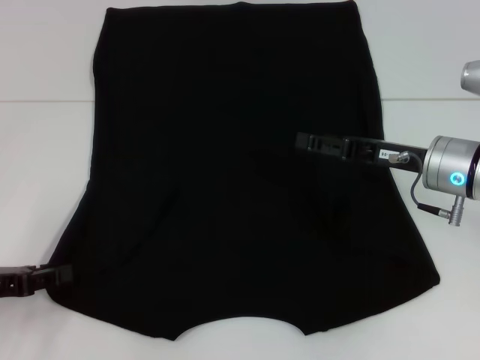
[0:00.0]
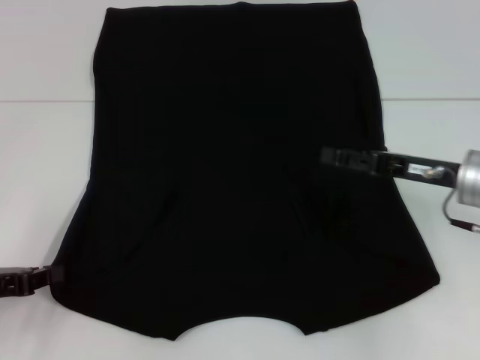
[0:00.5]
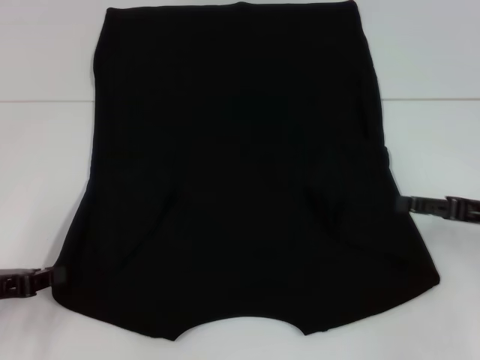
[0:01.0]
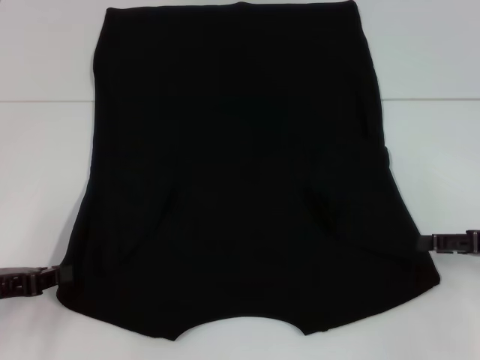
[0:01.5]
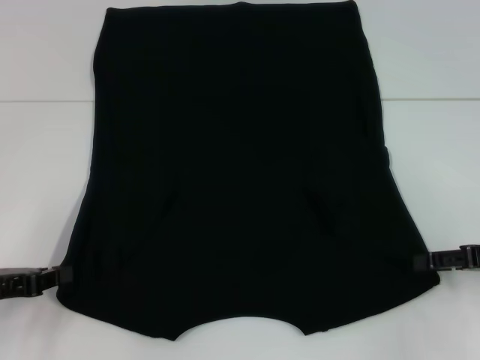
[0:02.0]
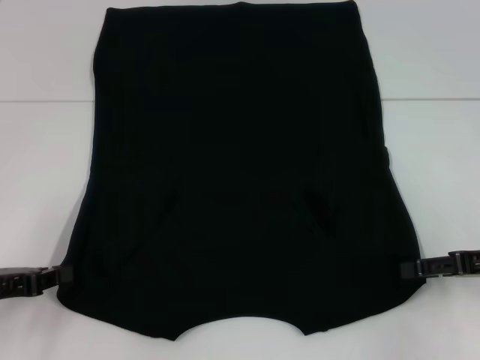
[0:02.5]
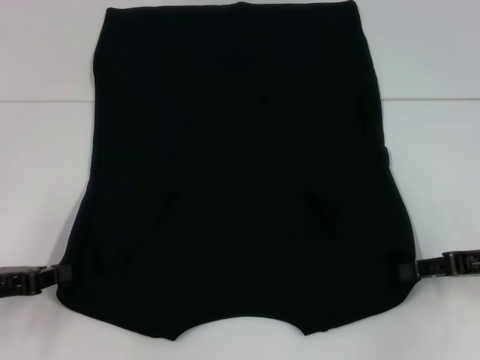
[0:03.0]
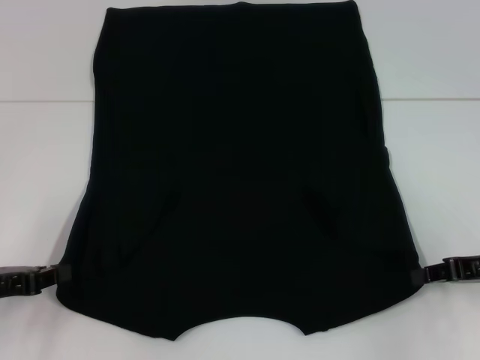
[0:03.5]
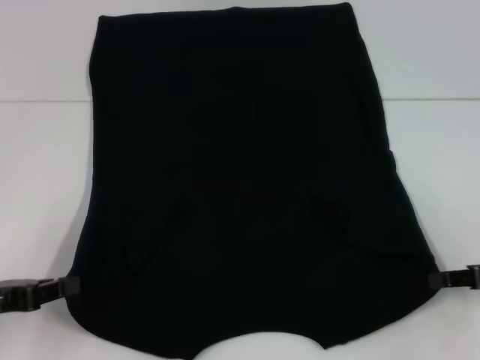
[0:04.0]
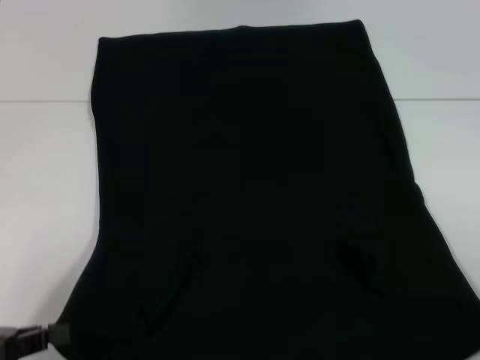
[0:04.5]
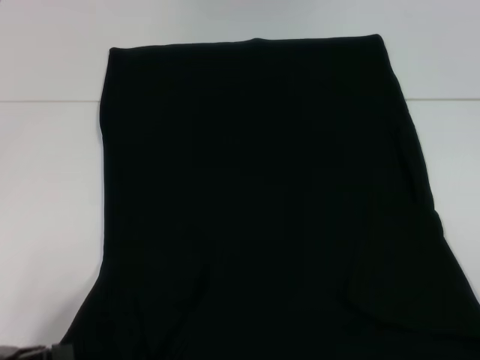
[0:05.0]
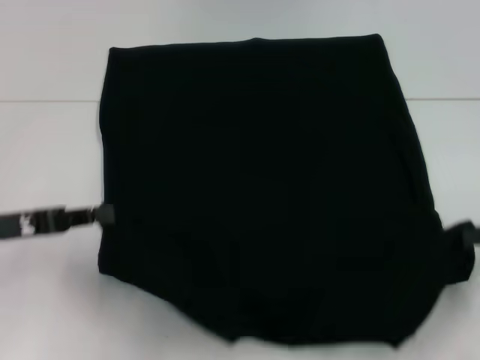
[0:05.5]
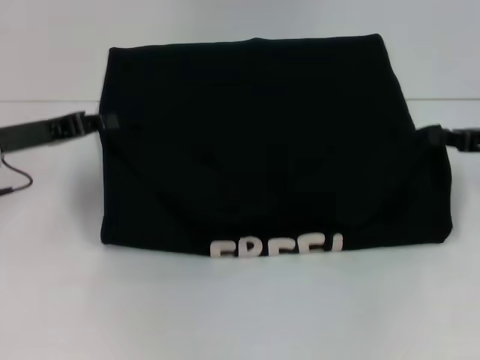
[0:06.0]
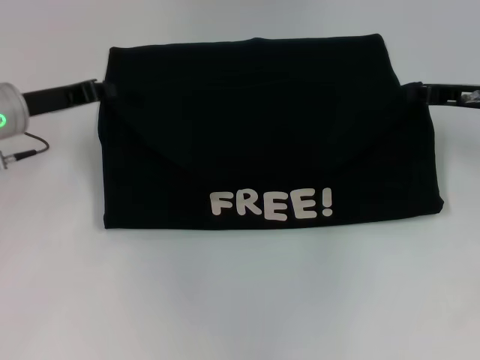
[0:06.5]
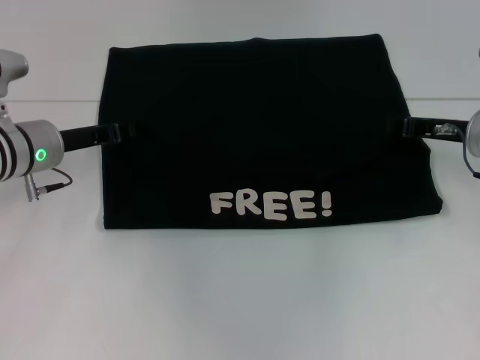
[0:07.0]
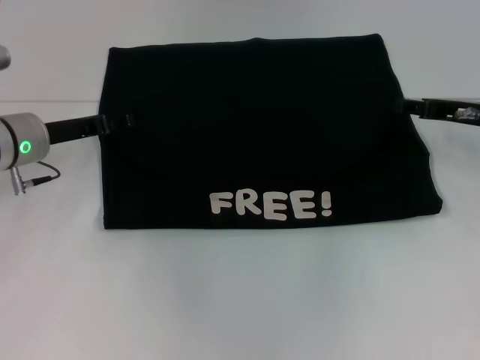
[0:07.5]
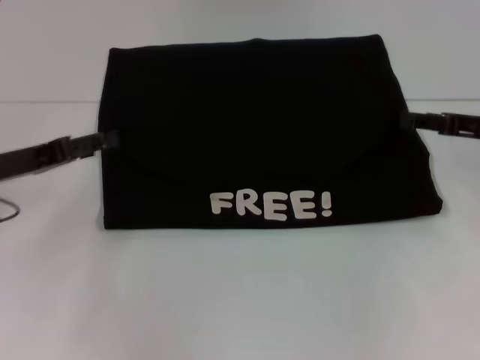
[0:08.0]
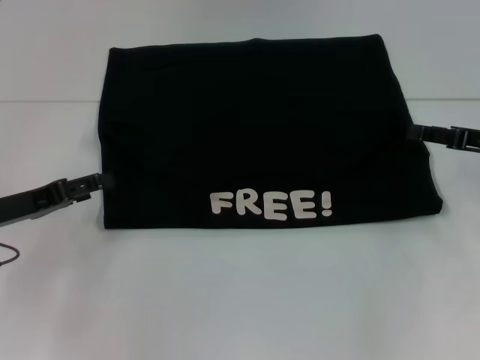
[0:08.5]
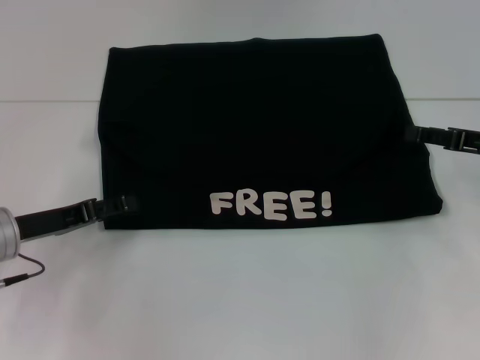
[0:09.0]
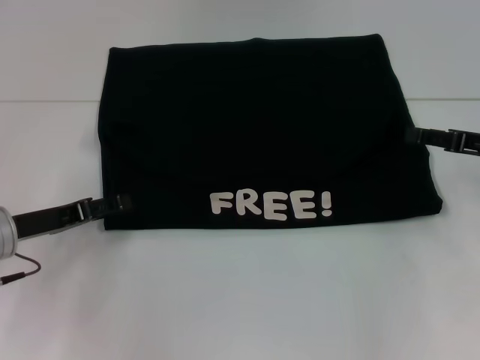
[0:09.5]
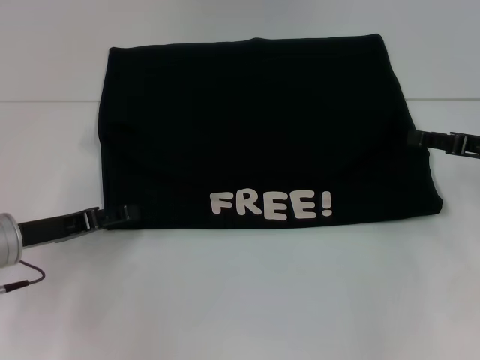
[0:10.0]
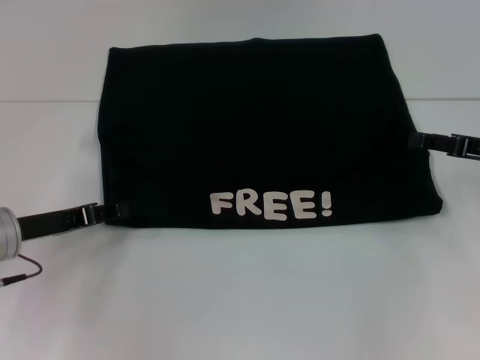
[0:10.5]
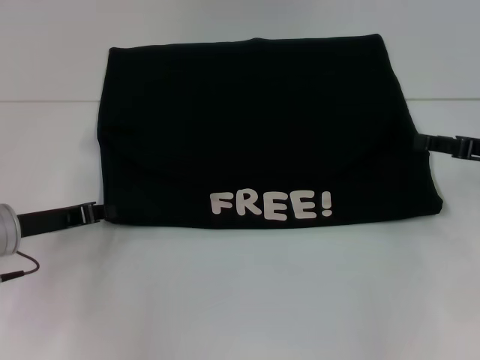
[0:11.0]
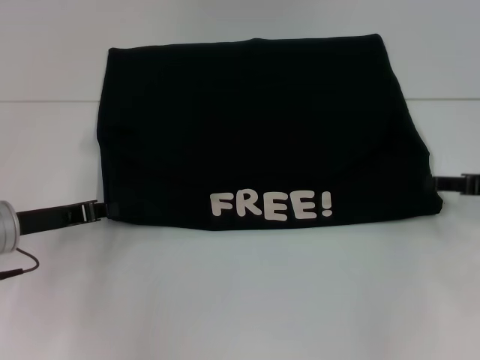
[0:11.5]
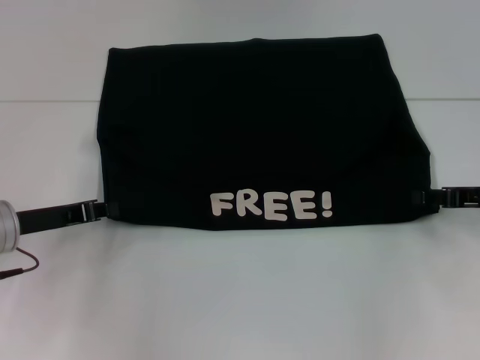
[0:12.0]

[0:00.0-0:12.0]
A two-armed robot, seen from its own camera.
Step, 0:01.0 to 0:04.0: Grab the bottom right corner with your right hand.
Step, 0:04.5 to 0:07.0: Fold the clothes with your left hand.
Step, 0:04.5 to 0:07.0: Fold the clothes with your right hand.
0:00.0 to 0:02.0: The right gripper travels to the right and backward by some 15 cm. The left gripper closes its fingers.
0:02.0 to 0:04.0: The right gripper closes.
0:04.0 to 0:06.0: Both grippers travel together forward and upward, about 10 cm.
0:06.0 to 0:08.0: The right gripper opens. Meanwhile the left gripper opens.
0:08.0 to 0:10.0: The left gripper shifts roughly 5 cm downward.
0:10.0 to 0:12.0: The left gripper closes its fingers.

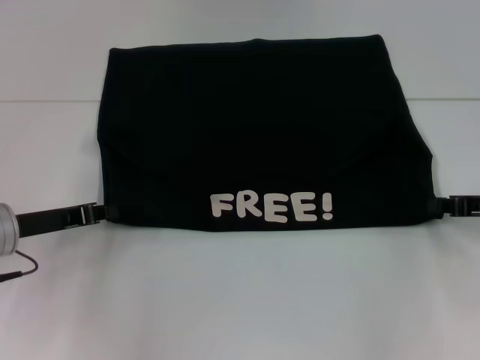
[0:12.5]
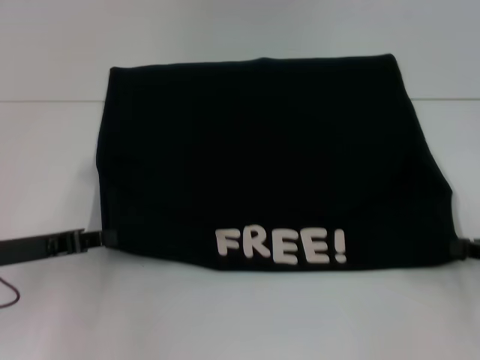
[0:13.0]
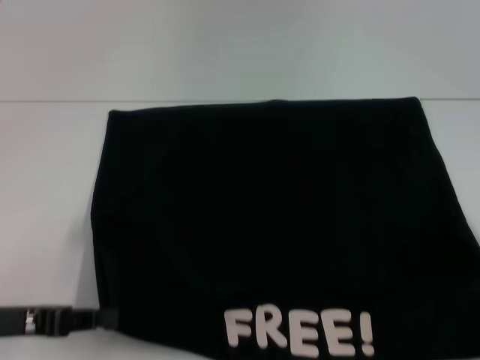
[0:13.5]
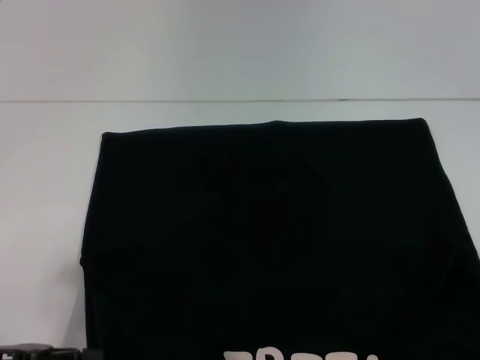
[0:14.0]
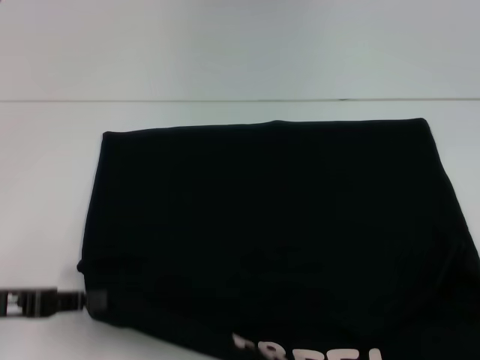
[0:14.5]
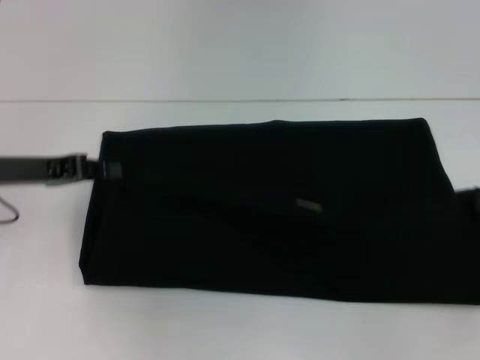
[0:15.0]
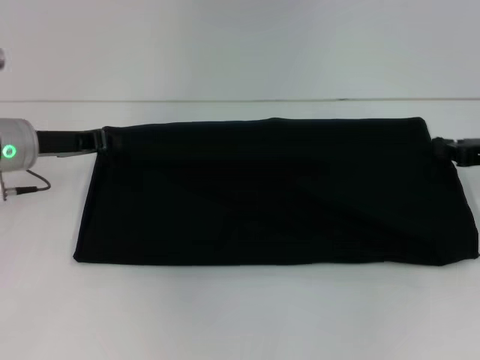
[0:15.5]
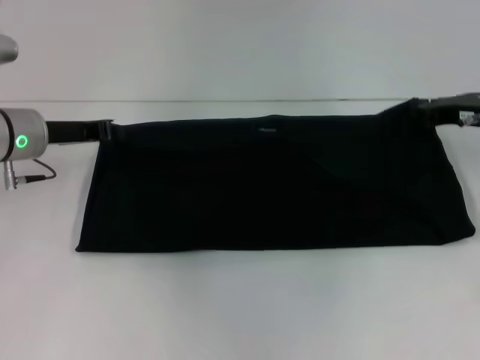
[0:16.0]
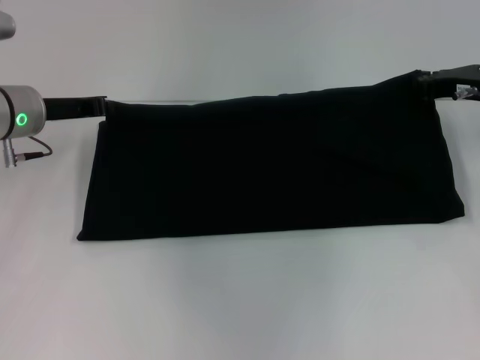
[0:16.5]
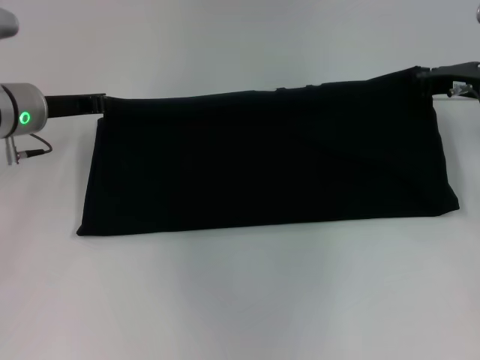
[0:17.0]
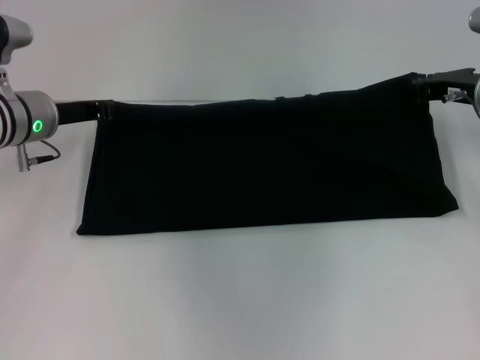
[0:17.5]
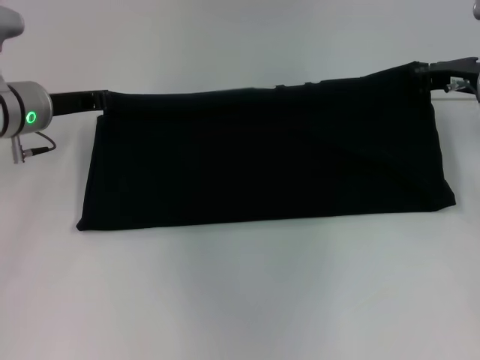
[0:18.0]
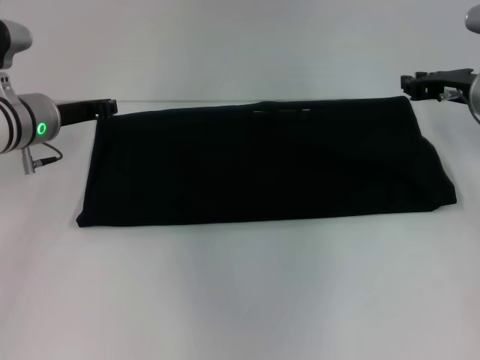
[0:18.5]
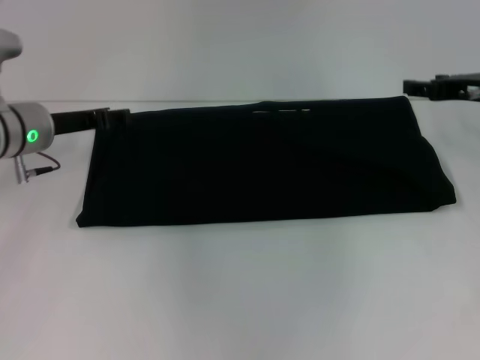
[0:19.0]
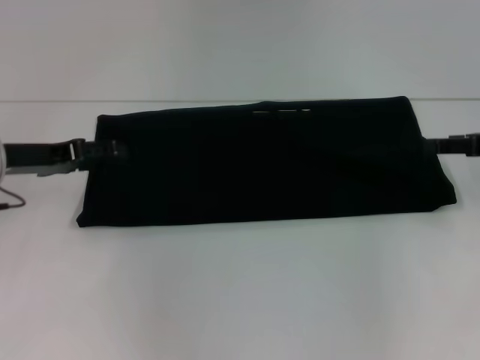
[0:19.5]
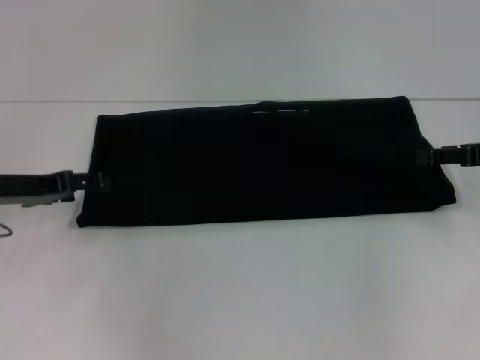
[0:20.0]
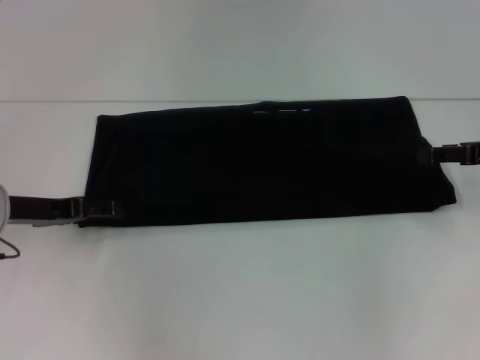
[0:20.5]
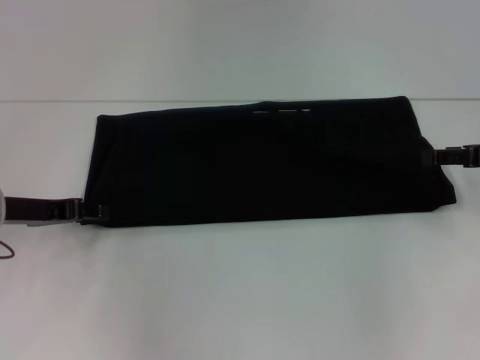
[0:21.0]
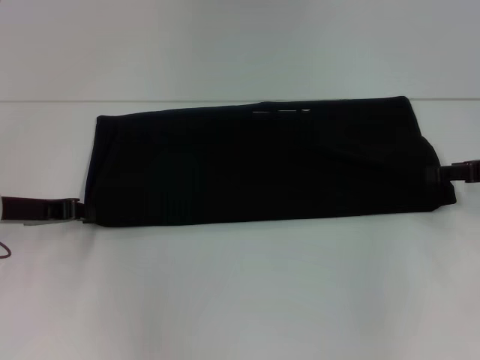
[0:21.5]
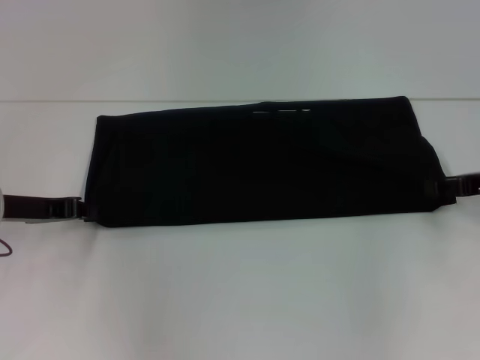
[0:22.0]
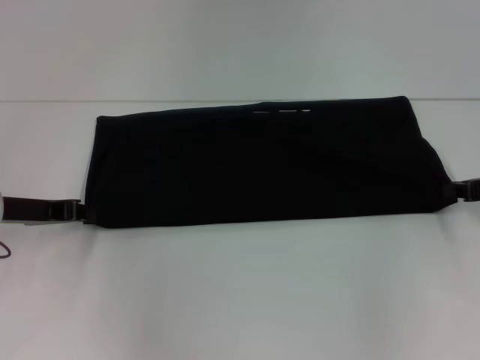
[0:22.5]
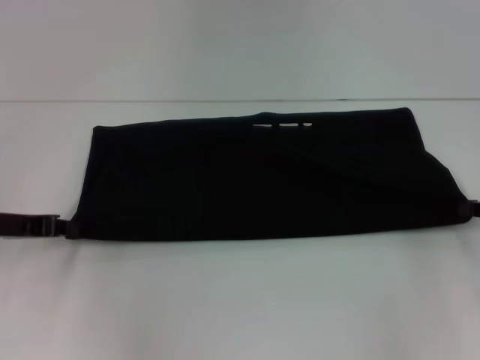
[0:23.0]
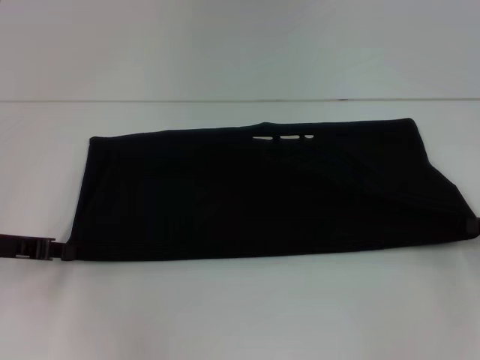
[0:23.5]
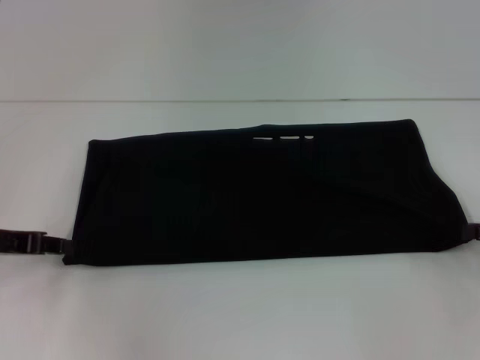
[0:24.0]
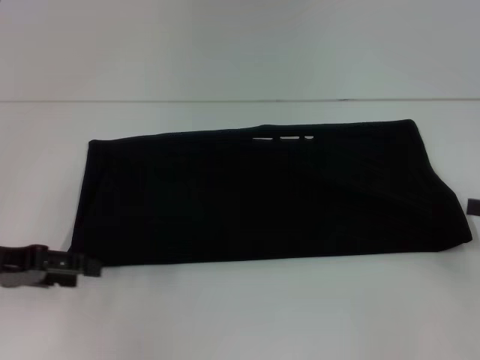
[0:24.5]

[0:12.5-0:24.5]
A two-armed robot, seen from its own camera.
Step, 0:14.0 to 0:19.0: Fold the clothes with your right hand.
0:12.5 to 0:14.5: The left gripper is displaced backward by about 10 cm; the right gripper is displaced backward and to the right by roughly 20 cm.
0:14.5 to 0:16.5: The right gripper heads forward and to the left, covering some 30 cm. Meanwhile the left gripper shifts about 20 cm forward.
0:16.5 to 0:18.5: There are only small adjustments of the grippers.
0:18.5 to 0:20.5: The right gripper heads backward and to the right, covering about 10 cm, and opens; the left gripper is displaced backward by roughly 10 cm, and opens up.
0:20.5 to 0:22.5: The right gripper closes up. Meanwhile the left gripper closes its fingers.
0:22.5 to 0:24.5: The grippers both shift backward by approximately 5 cm. The left gripper opens. The right gripper opens up.

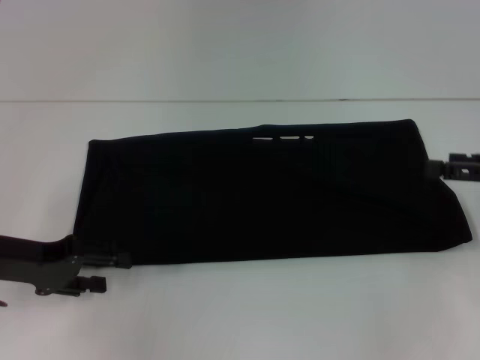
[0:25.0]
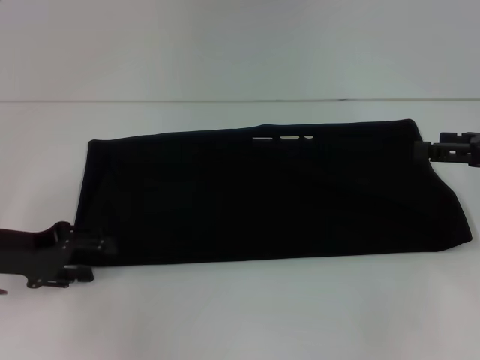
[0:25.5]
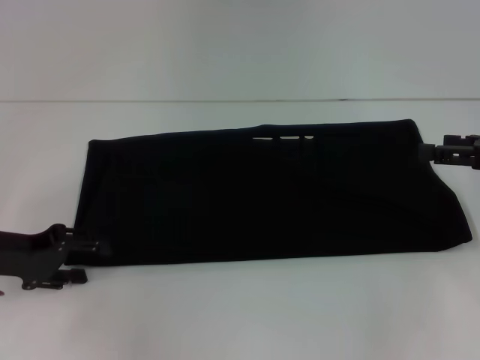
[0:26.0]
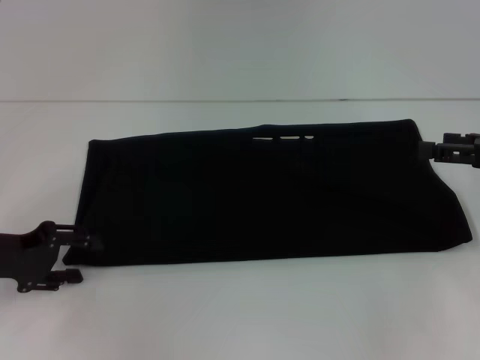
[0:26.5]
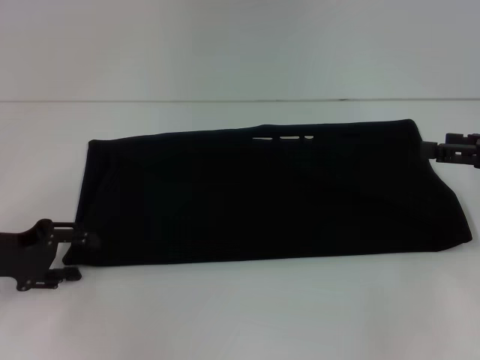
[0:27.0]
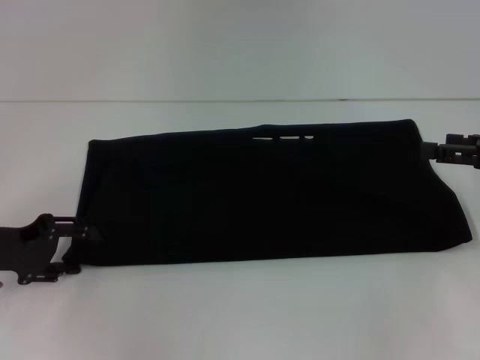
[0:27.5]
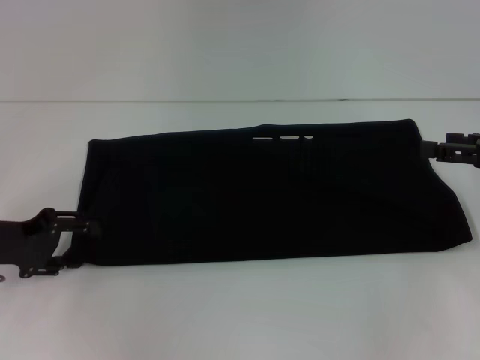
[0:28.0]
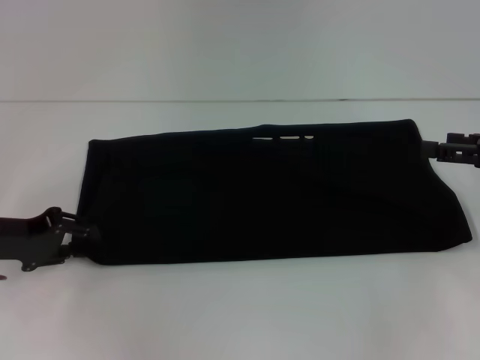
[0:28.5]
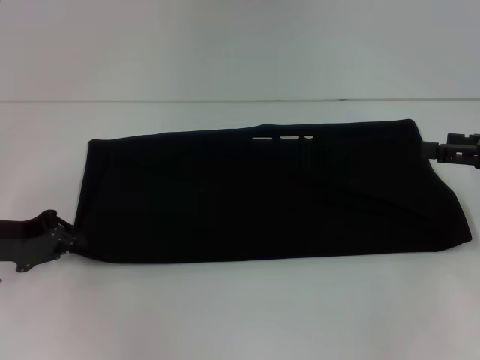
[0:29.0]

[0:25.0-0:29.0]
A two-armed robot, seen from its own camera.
0:27.0 to 0:29.0: The left gripper closes its fingers.
